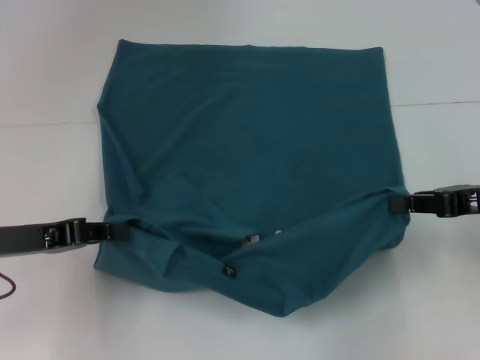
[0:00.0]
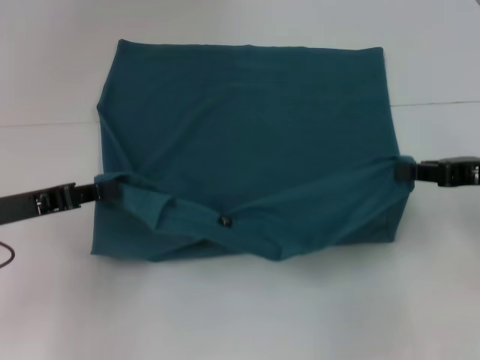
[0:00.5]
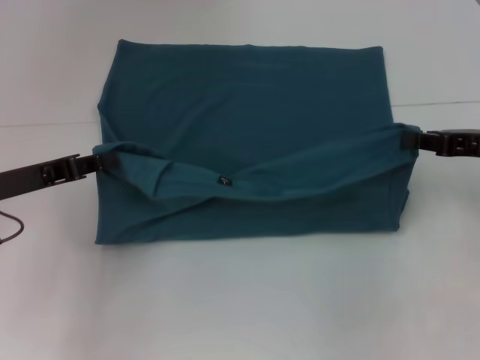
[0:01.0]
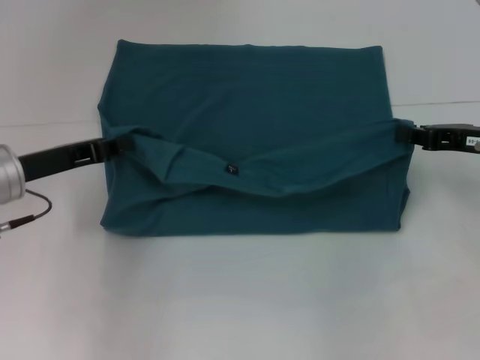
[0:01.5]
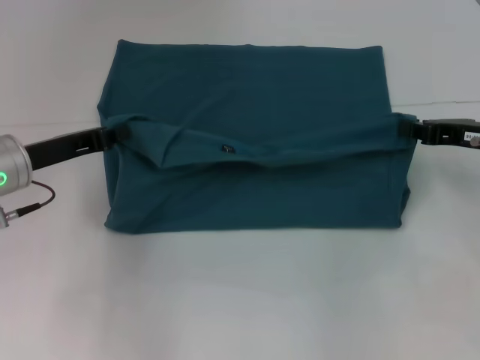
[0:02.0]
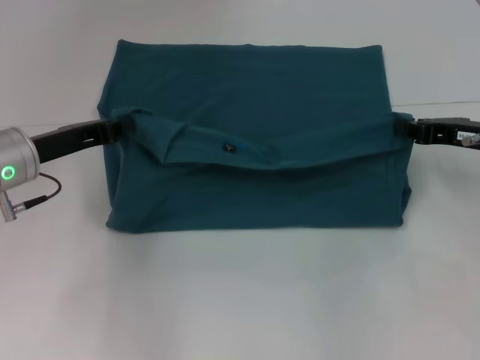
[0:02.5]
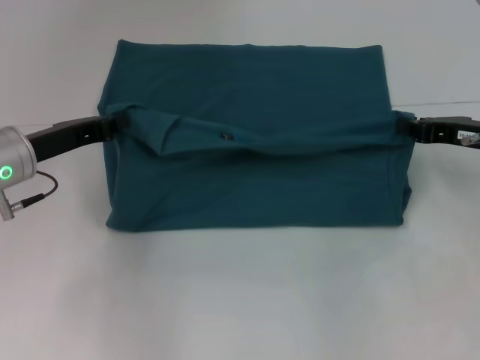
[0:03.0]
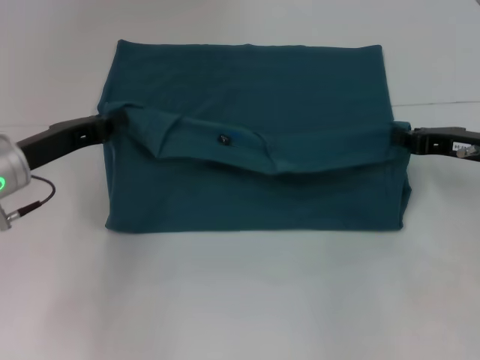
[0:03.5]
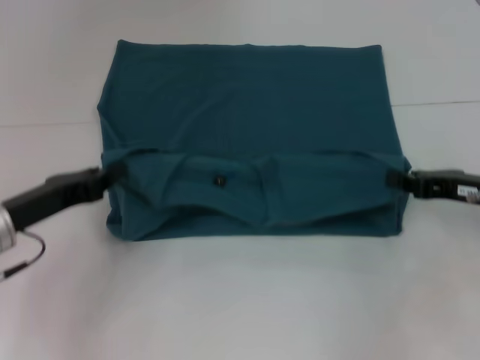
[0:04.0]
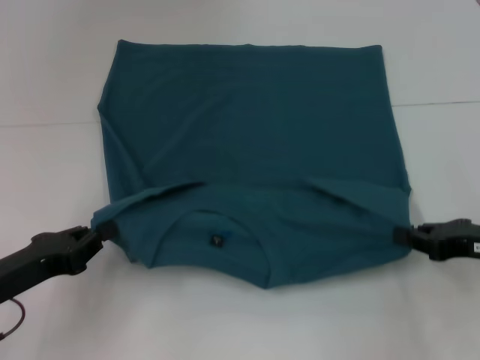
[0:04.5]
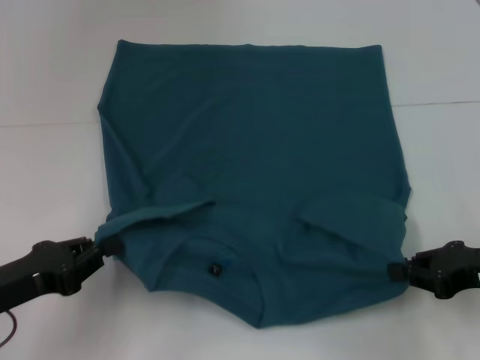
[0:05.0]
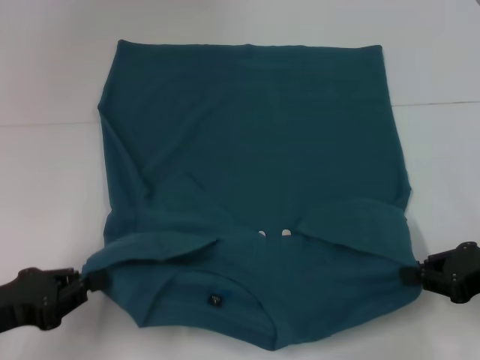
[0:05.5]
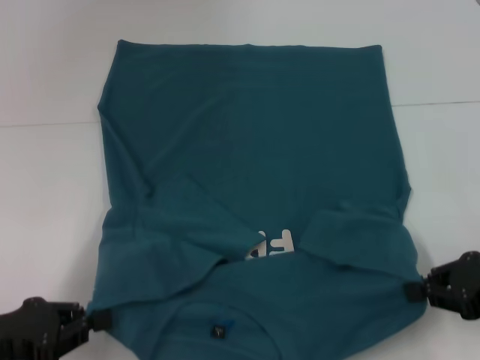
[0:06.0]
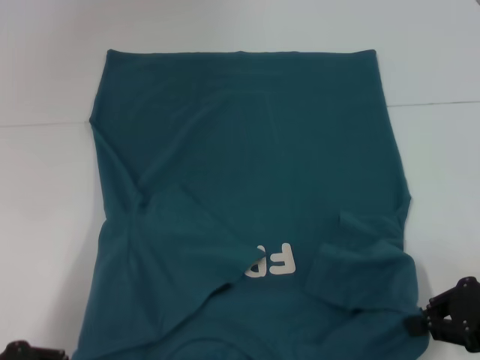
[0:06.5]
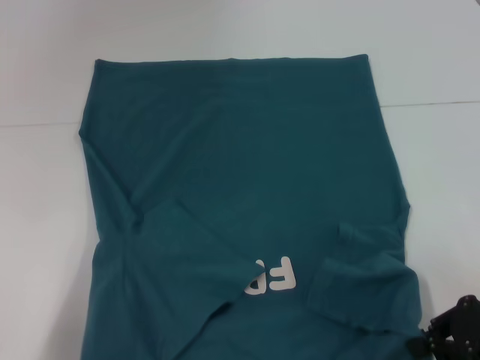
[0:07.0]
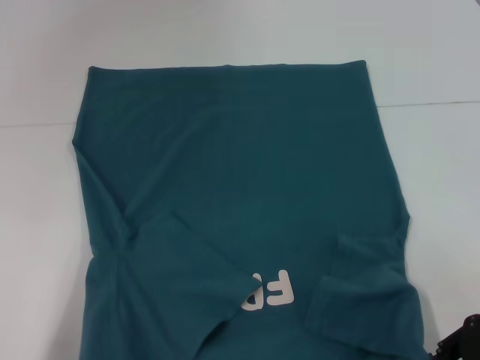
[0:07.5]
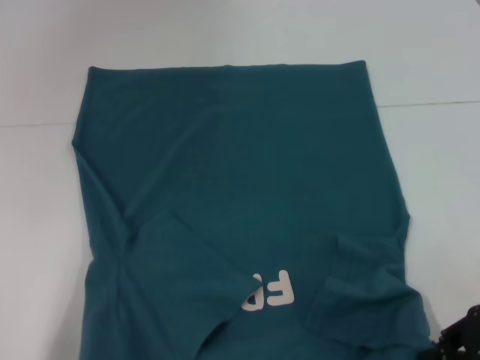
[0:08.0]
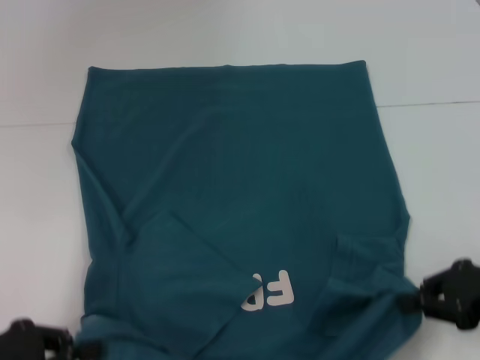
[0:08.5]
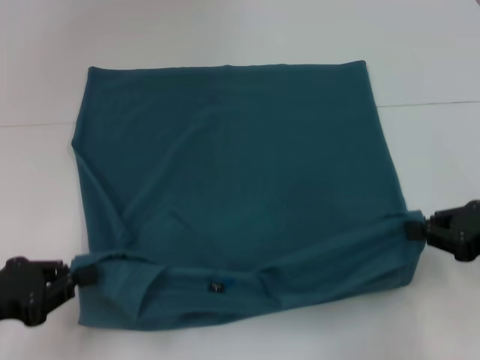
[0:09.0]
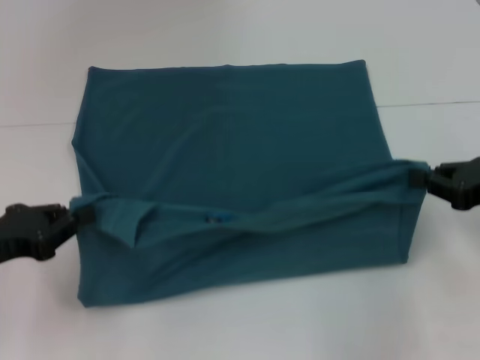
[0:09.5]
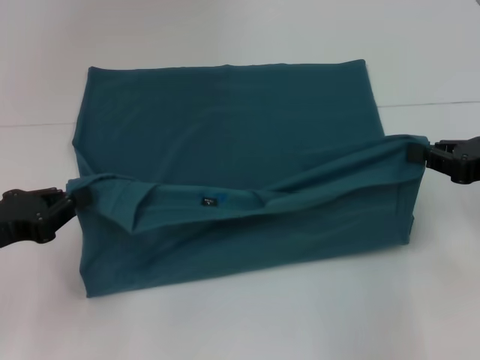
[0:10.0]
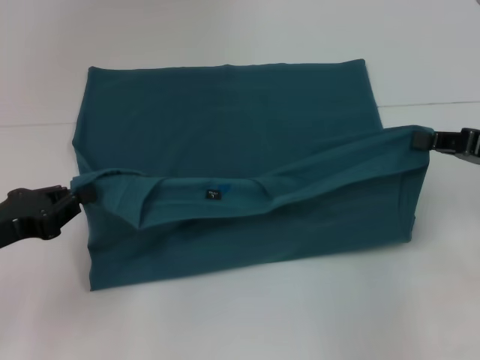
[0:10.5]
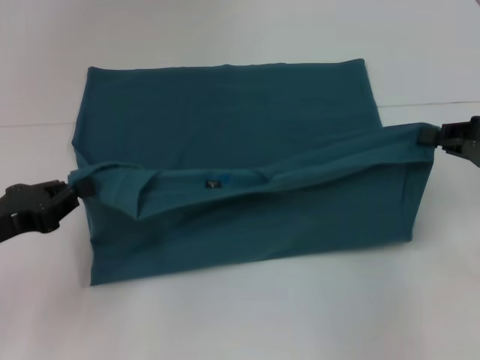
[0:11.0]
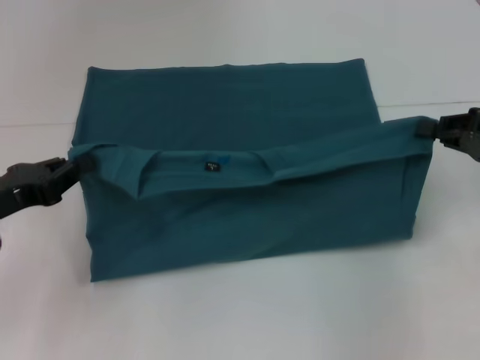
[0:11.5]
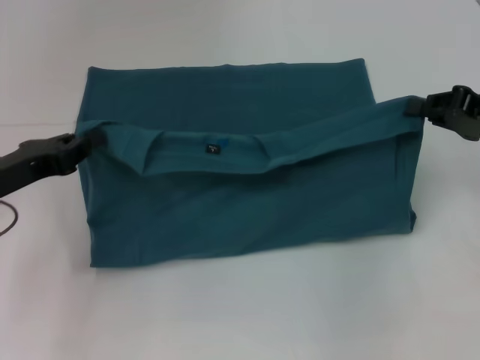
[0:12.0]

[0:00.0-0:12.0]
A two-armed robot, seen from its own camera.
0:00.0 to 0:02.0: Both grippers move forward, about 5 cm.
0:02.0 to 0:04.0: The right gripper ends up about 5 cm from where it was; the left gripper moves backward, roughly 5 cm.
0:04.0 to 0:06.0: Both grippers move backward, roughly 10 cm.
0:06.0 to 0:08.0: The left gripper travels backward by some 5 cm.
0:08.0 to 0:10.0: The left gripper travels forward by about 10 cm, while the right gripper shifts about 5 cm forward.
0:10.0 to 0:12.0: The left gripper ends up about 5 cm from where it was.

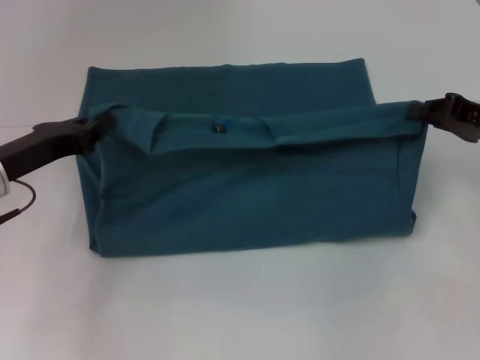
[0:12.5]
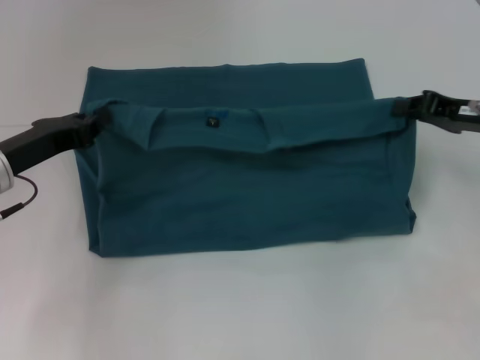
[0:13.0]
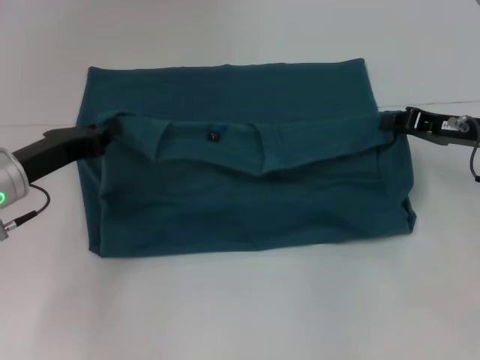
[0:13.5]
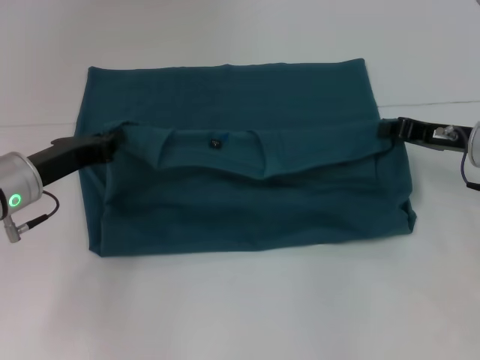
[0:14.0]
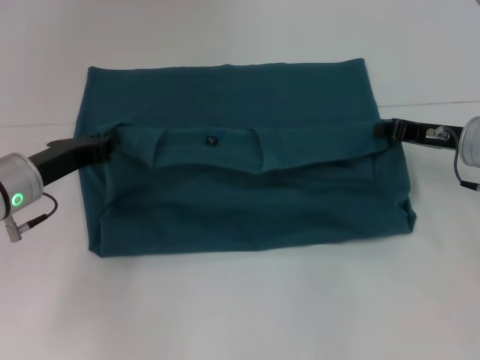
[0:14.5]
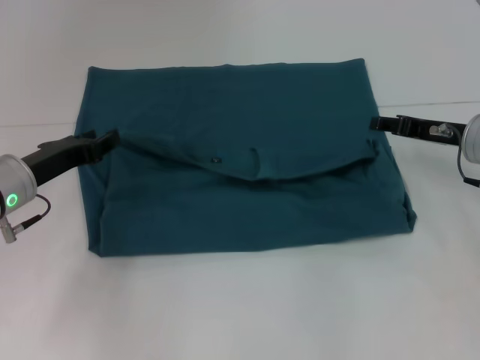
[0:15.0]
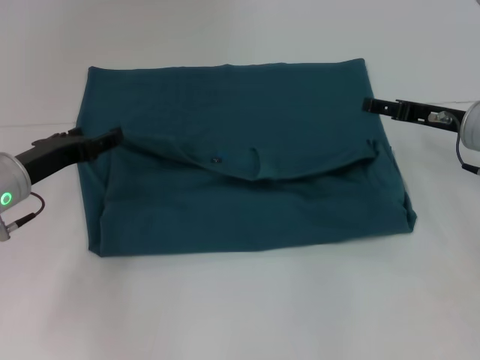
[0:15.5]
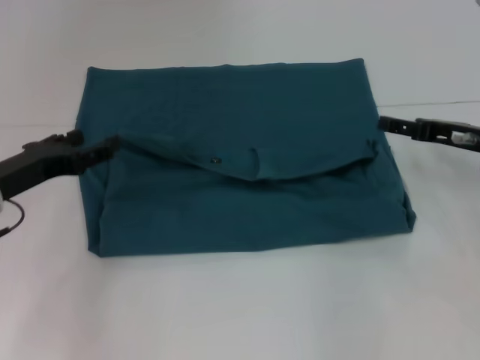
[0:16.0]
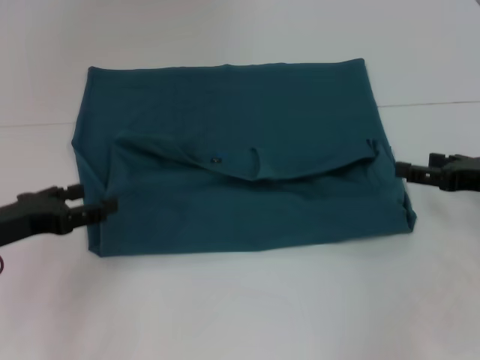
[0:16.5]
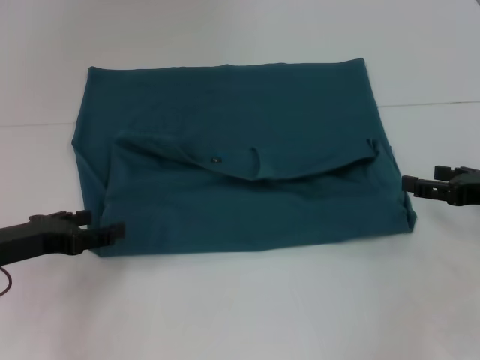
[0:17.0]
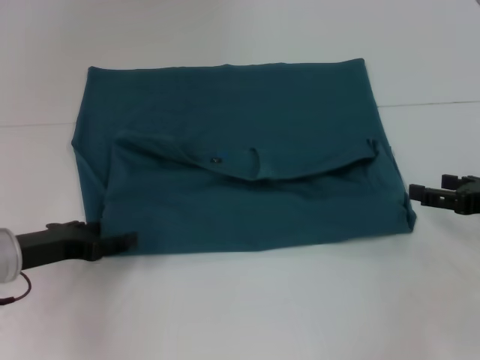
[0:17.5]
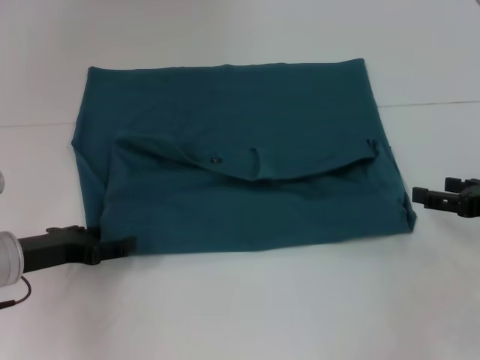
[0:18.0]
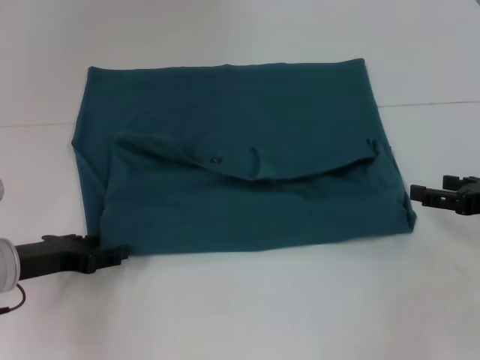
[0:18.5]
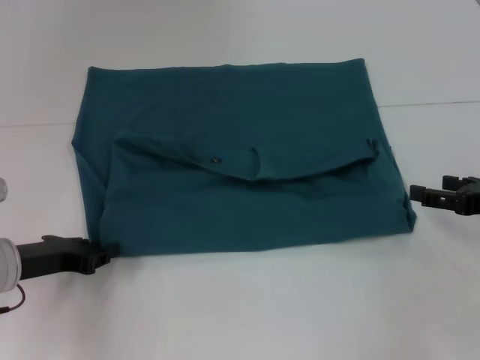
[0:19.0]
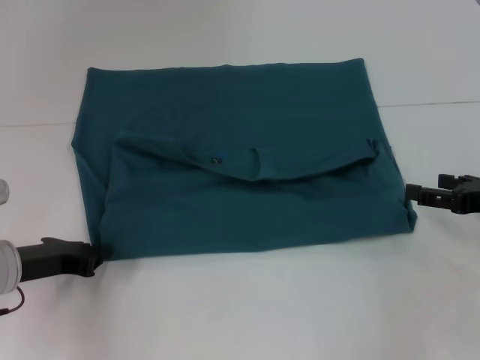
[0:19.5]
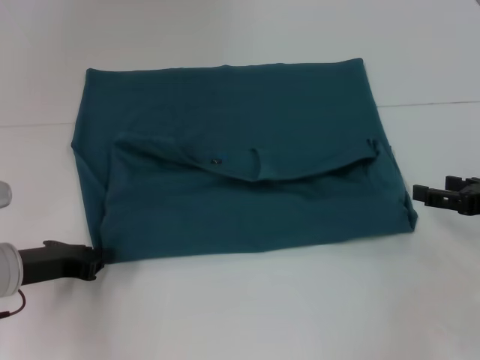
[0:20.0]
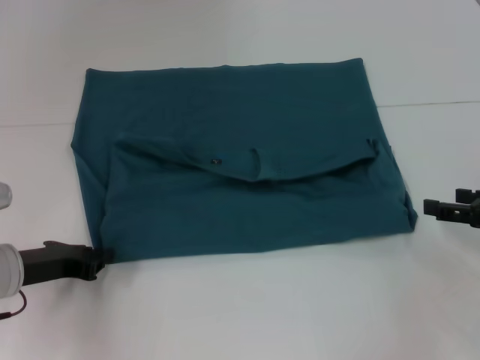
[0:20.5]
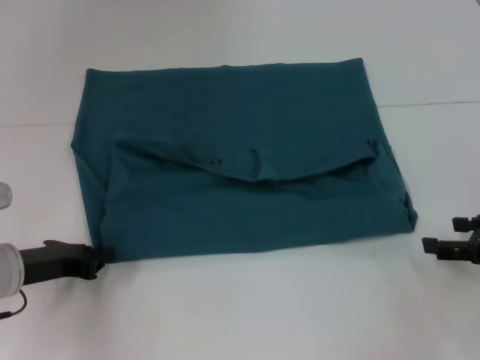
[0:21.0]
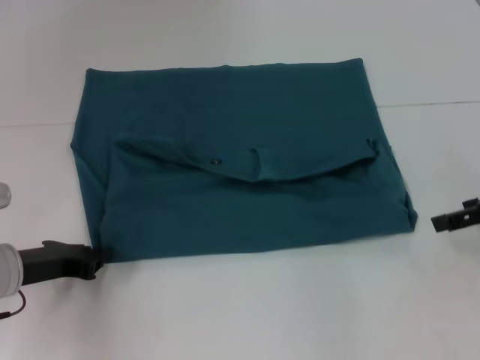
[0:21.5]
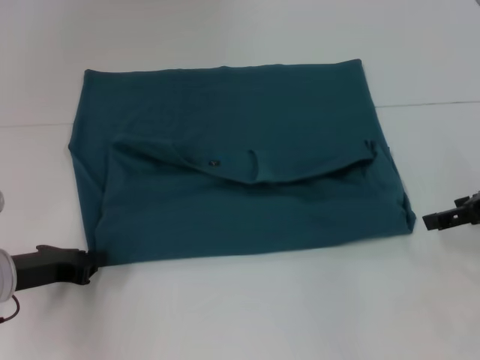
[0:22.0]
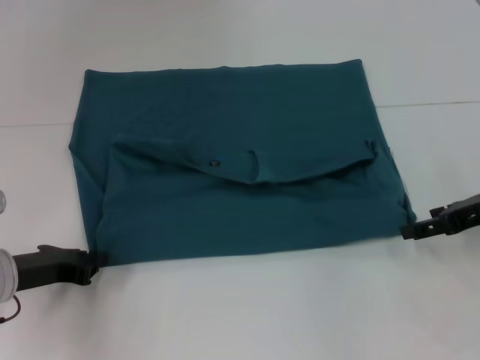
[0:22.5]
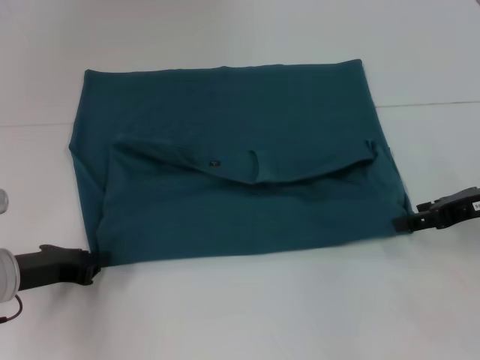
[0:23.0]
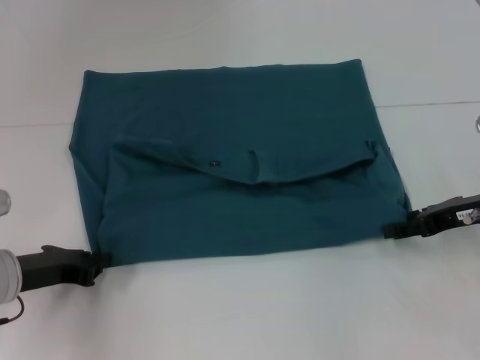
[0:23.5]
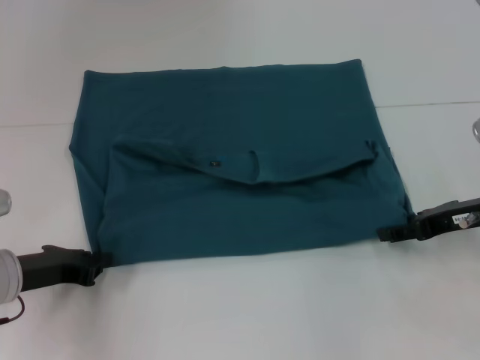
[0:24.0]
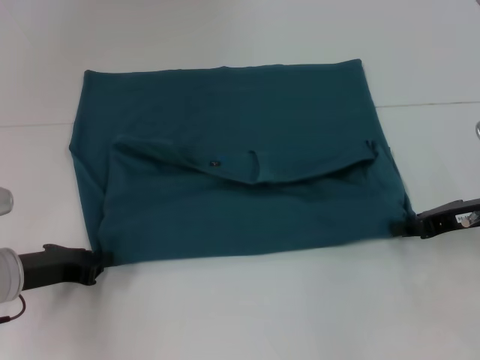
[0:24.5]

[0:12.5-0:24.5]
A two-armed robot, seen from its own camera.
Step, 0:12.5 to 0:15.0: Fold the clothes to the left.
Step, 0:12.5 to 0:15.0: Fold the clothes to the right.
0:12.5 to 0:14.5: The right gripper changes place by about 5 cm.
0:14.5 to 0:16.5: The left gripper heads backward and to the left, covering roughly 10 cm, and opens, while the right gripper is displaced backward by roughly 5 cm, and opens up.
0:16.5 to 0:18.5: There are only small adjustments of the grippers.
0:18.5 to 0:20.5: The left gripper closes.
0:20.5 to 0:22.5: The right gripper goes upward and returns, roughly 5 cm each way.
0:22.5 to 0:24.5: The right gripper closes.

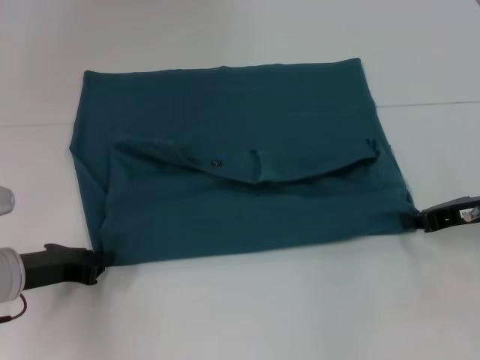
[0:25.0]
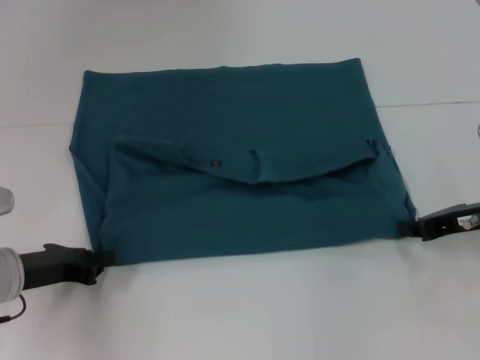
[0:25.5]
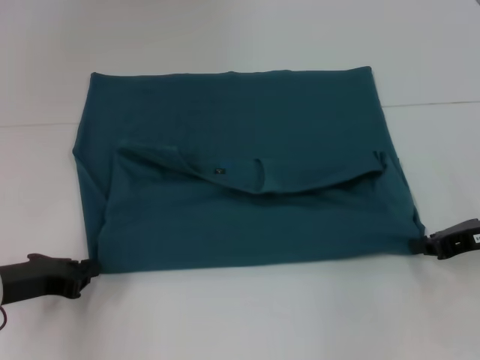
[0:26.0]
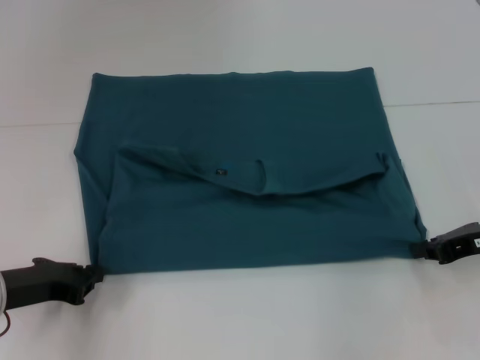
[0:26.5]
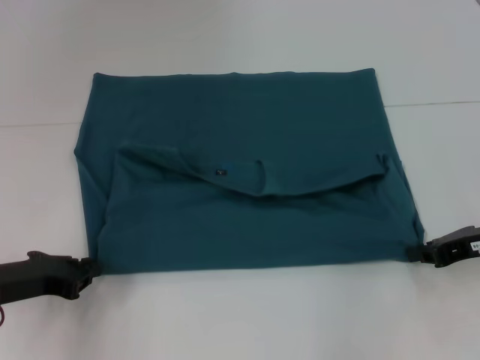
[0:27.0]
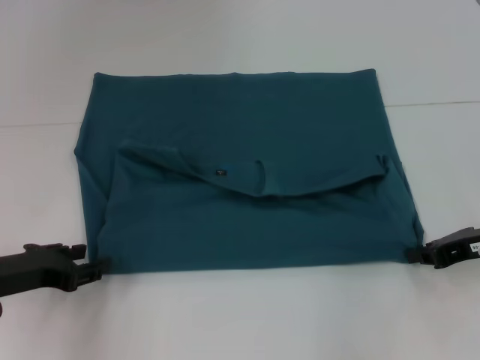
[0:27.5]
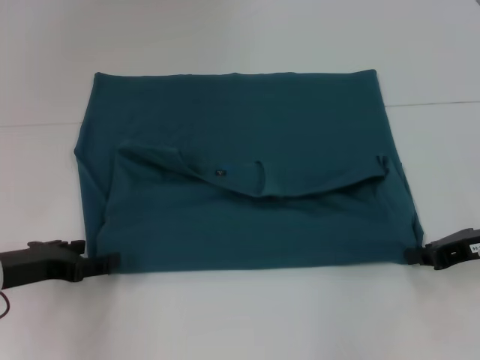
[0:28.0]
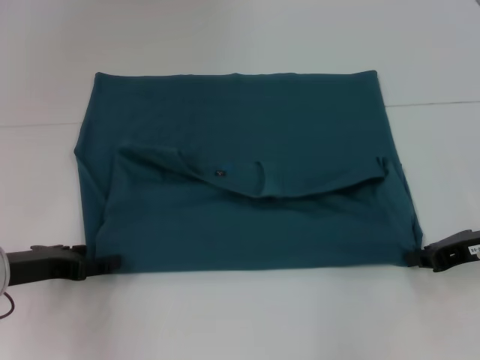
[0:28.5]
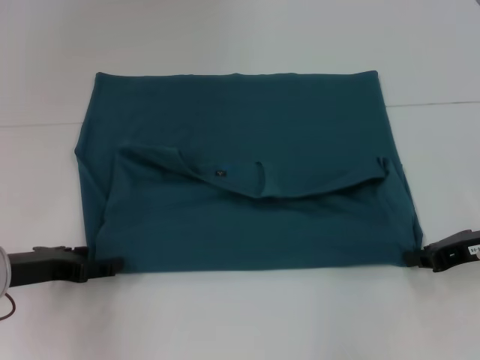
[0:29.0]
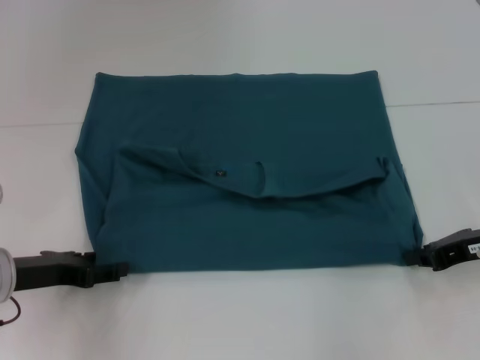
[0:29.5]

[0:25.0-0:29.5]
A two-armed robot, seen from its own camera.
0:25.0 to 0:27.0: The grippers make only small movements.
0:27.0 to 0:29.5: The left gripper opens.
